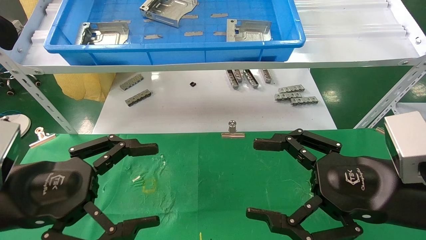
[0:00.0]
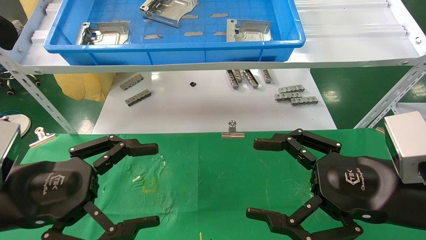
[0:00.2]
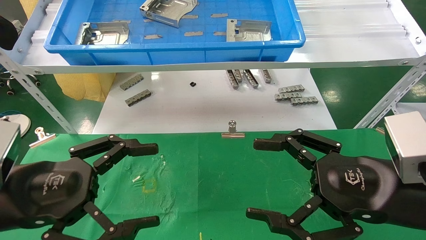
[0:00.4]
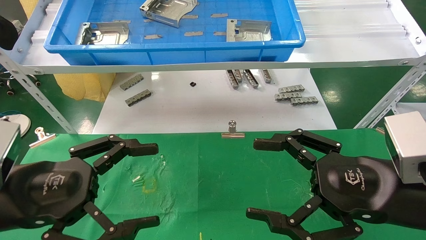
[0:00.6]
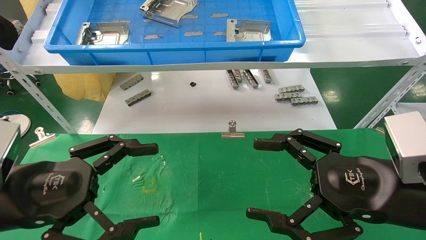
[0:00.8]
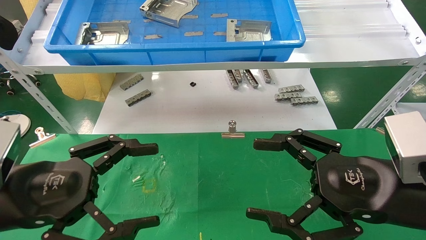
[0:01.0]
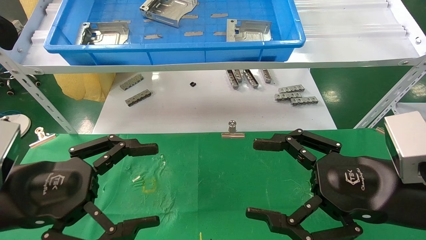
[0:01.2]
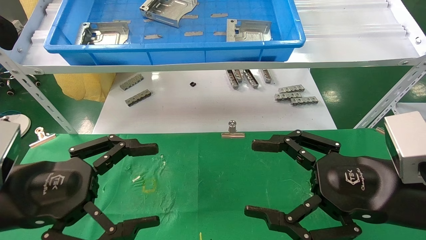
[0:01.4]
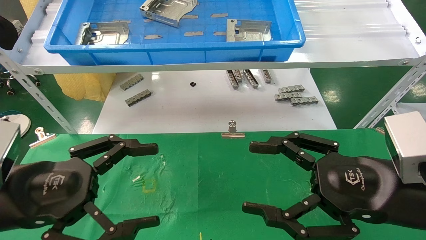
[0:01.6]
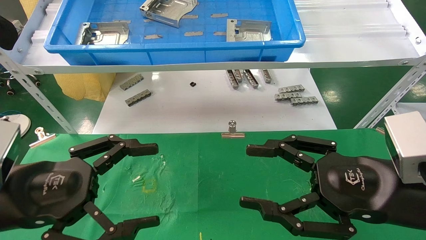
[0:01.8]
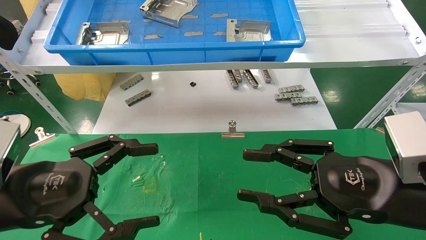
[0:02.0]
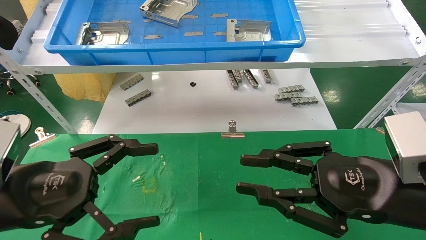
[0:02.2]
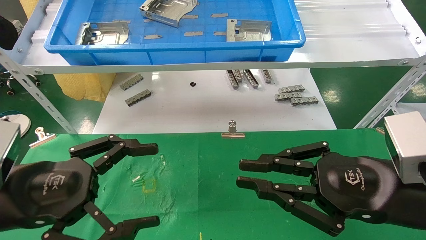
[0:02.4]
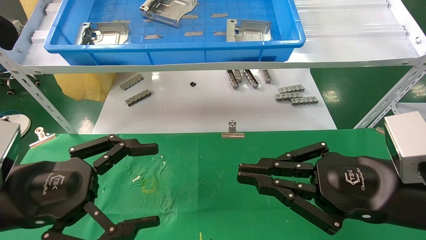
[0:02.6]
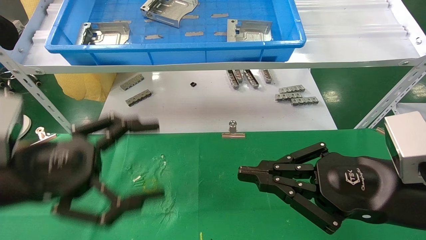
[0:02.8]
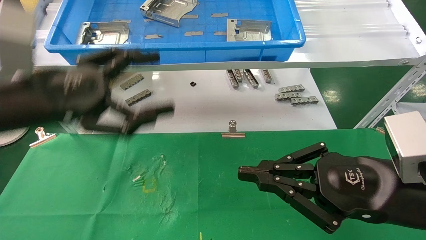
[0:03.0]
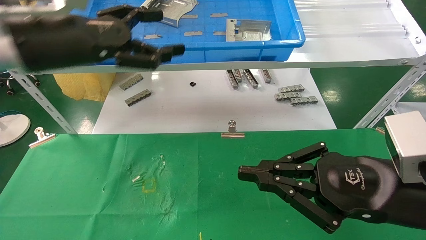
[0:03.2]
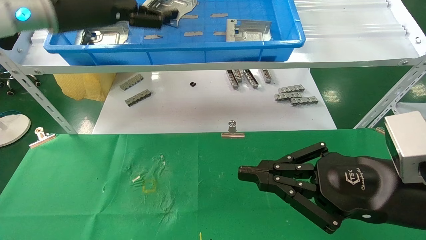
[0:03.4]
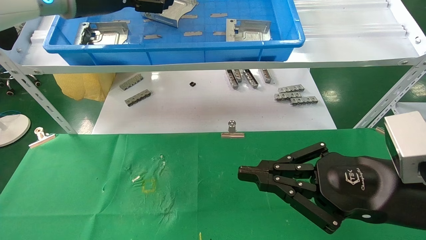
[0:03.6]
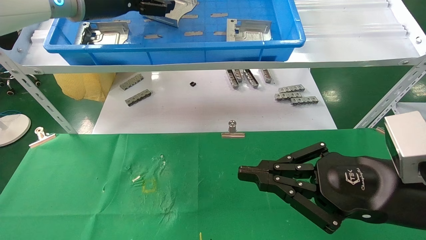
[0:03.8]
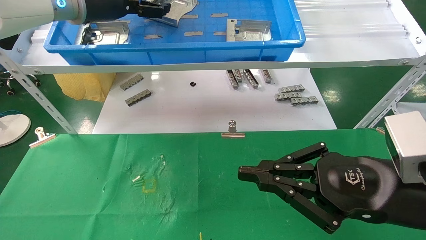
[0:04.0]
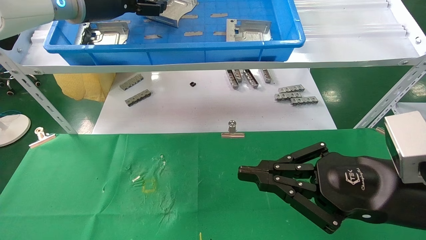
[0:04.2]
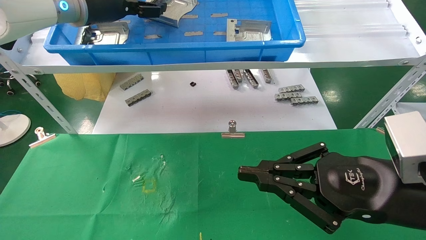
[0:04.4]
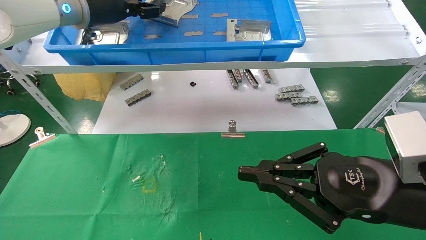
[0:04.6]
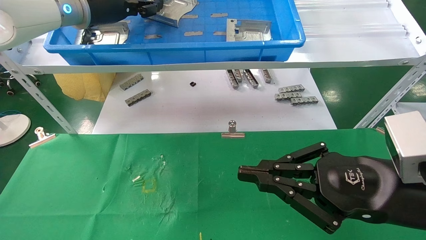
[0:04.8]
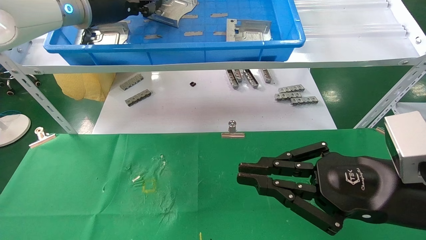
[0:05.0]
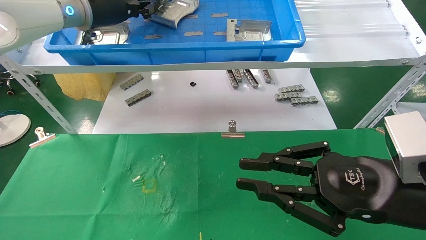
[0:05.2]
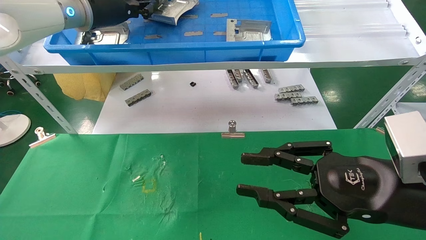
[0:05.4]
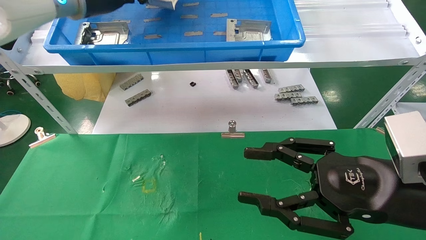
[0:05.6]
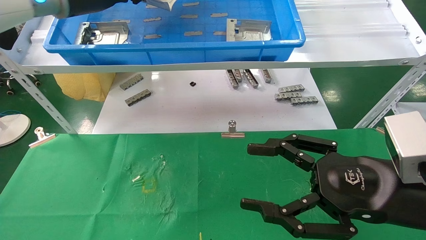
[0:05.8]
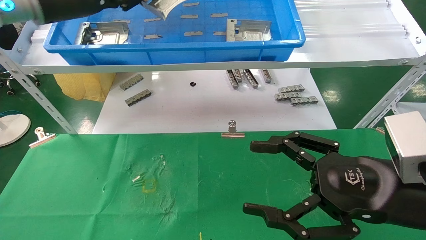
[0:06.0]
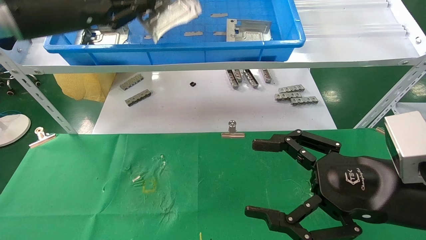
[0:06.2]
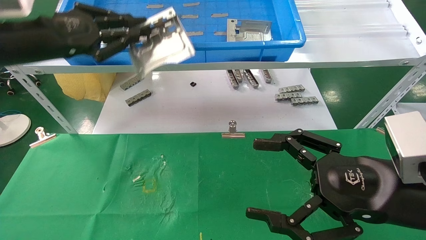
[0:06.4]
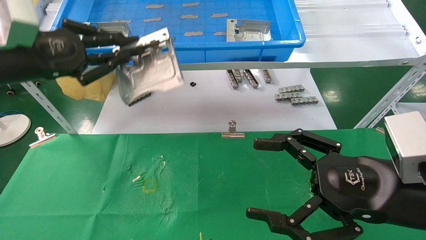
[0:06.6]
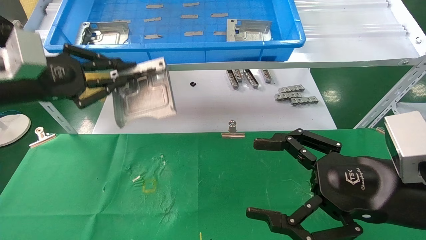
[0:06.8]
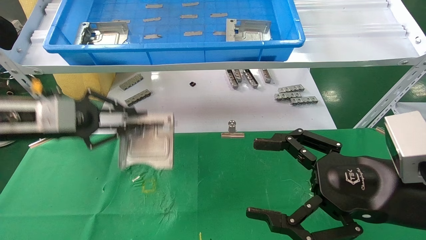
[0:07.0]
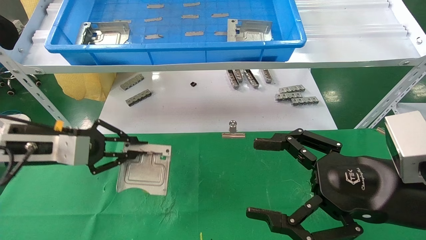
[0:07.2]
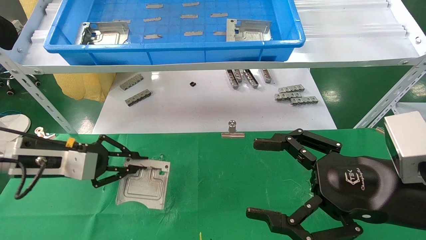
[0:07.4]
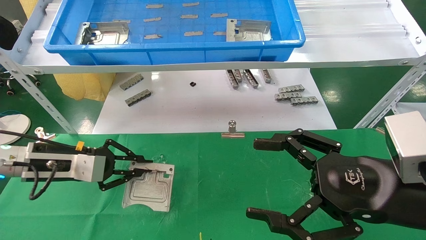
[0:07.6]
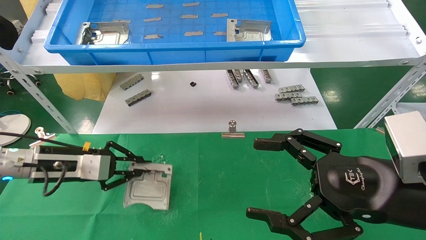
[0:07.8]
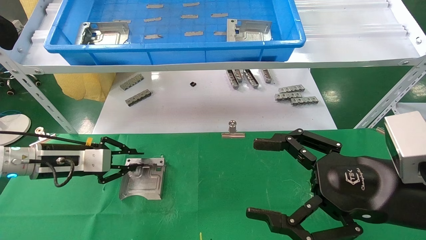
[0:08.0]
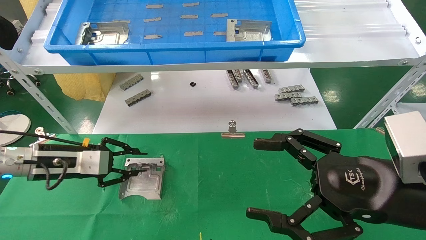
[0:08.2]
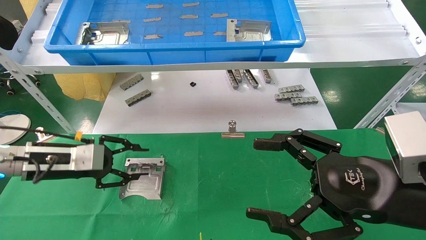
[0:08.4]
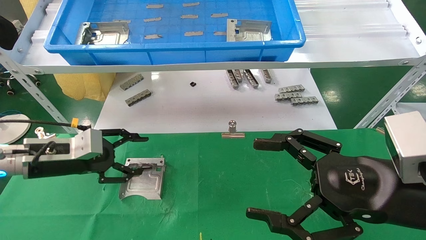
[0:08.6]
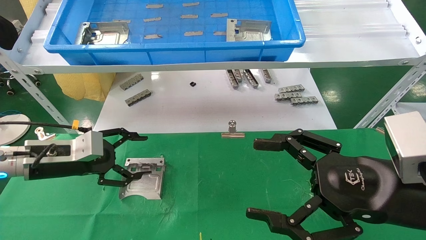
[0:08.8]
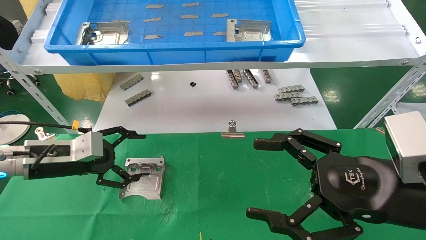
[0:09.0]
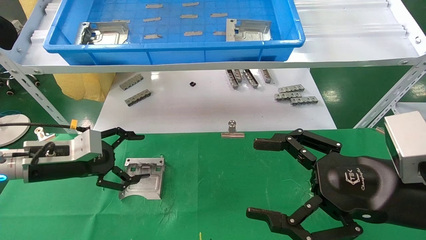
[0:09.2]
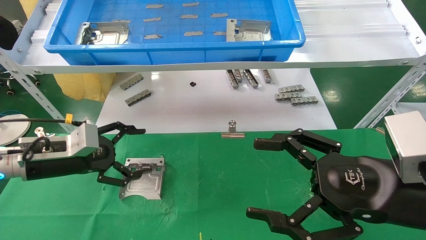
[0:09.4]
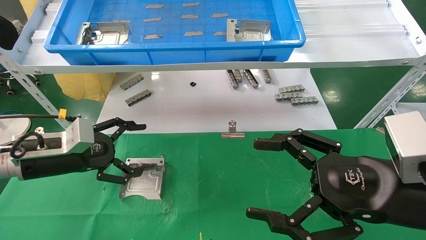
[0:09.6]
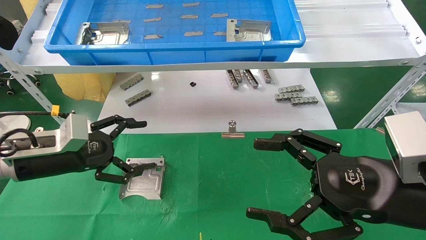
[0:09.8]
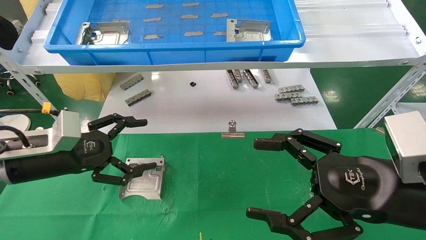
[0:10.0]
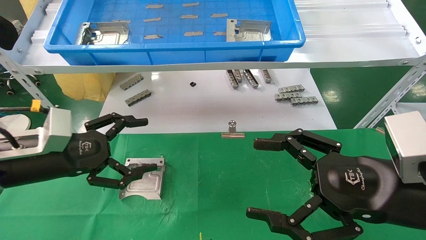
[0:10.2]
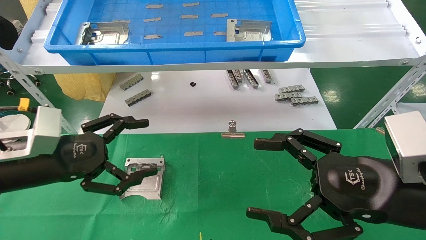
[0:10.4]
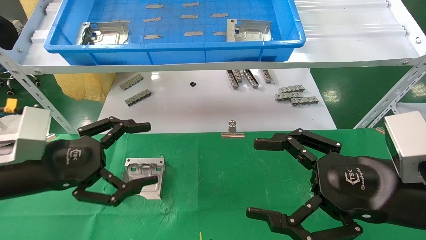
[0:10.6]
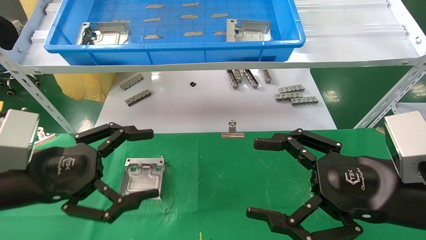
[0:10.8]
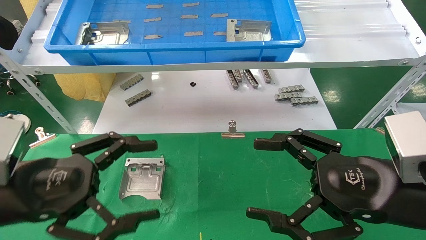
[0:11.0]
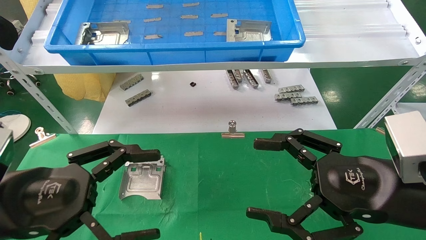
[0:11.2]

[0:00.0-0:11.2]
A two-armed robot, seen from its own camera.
Task of the whole recording: use the mechanical arm to pick up the parts and place them on the table.
Step, 0:03.0 to 0:05.2: Pick up the hard drive bracket from the feeding area.
Step, 0:05.4 to 0:08.4: Place the hard drive bracket into the box.
0:00.0 to 0:01.6: Neither gripper changes place.
0:01.6 to 0:03.2: The right gripper closes up, while the left gripper shifts approximately 20 cm upward and forward.
0:03.2 to 0:04.8: The left gripper heads forward and upward, covering some 10 cm, and closes its fingers.
0:04.8 to 0:06.4: The right gripper opens its fingers. Meanwhile the left gripper shifts roughly 15 cm backward, to the left and downward, and closes its fingers.
0:06.4 to 0:08.0: The left gripper moves downward, roughly 20 cm.
0:08.0 to 0:09.6: The left gripper opens its fingers.
0:09.6 to 0:11.2: The left gripper heads backward, covering about 15 cm.
